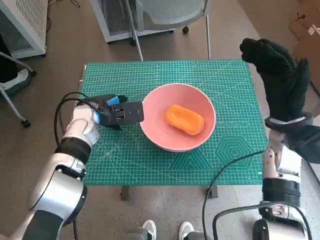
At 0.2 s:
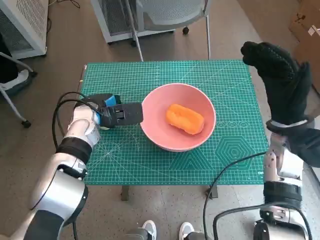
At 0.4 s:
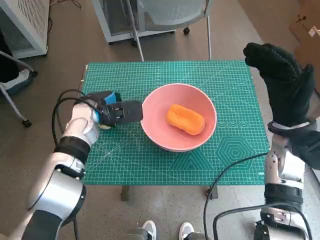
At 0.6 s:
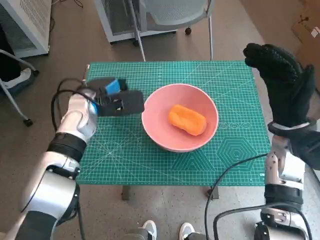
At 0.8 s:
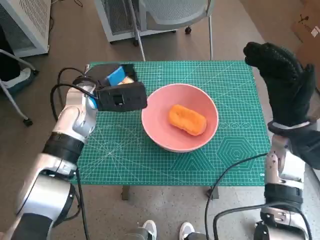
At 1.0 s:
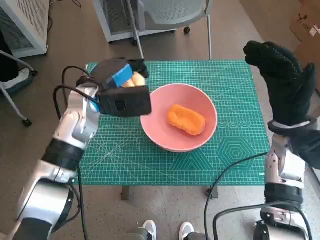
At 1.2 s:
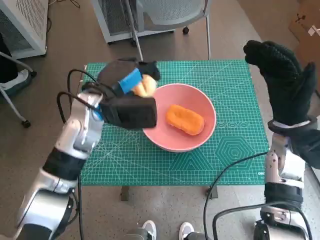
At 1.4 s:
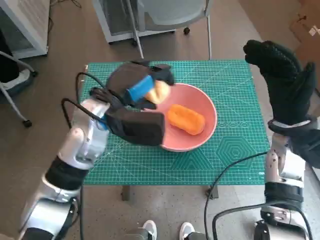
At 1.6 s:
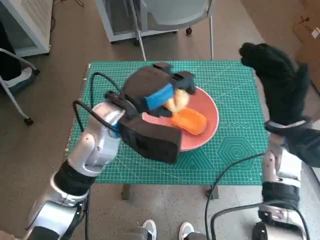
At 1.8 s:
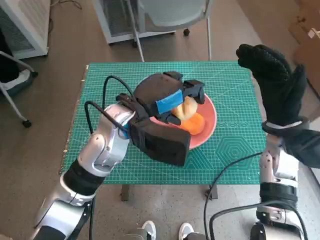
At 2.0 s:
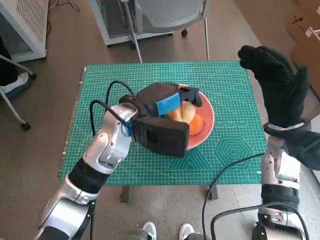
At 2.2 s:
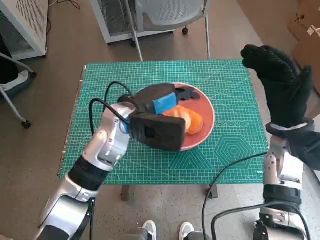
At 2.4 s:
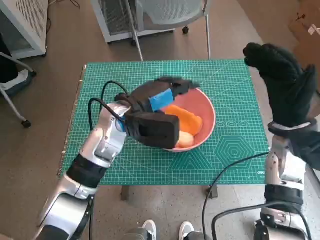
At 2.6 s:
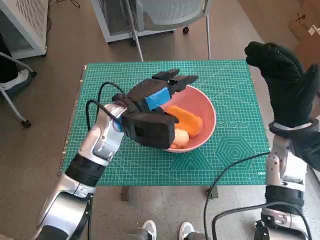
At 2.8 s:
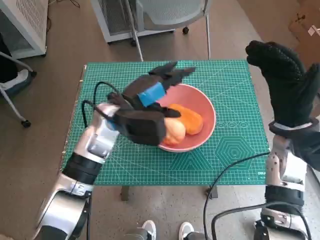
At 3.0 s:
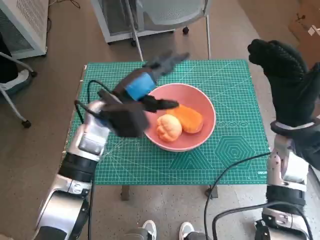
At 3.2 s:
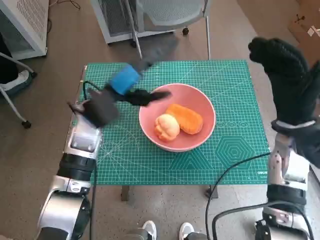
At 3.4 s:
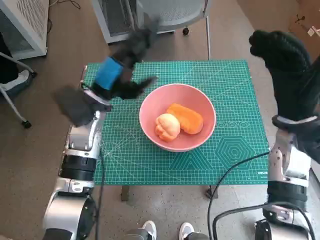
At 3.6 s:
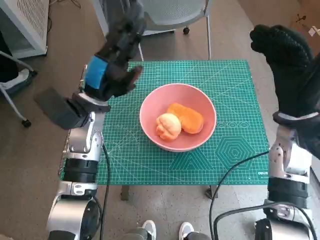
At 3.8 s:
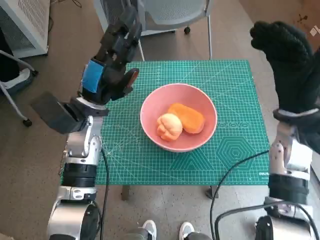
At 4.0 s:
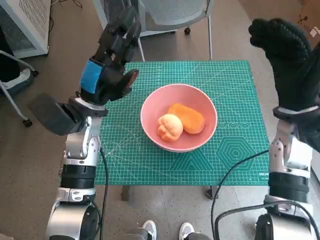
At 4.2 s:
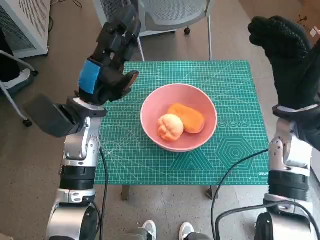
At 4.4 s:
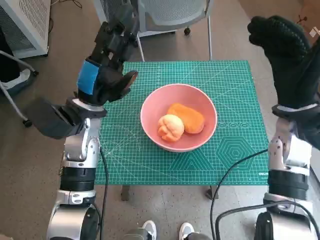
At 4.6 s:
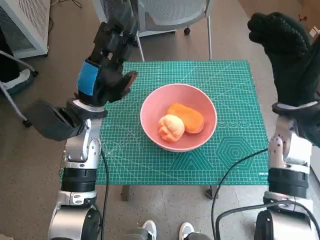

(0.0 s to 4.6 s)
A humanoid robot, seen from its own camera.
Step, 0.4 s - 2.4 s: Place the round bread in pink bowl with left hand.
0.0 s - 1.6 s: The left hand is displaced upward, to the right and backward by roughly 15 cm.
1.6 s - 3.0 s: The left hand changes place by approximately 5 cm.
